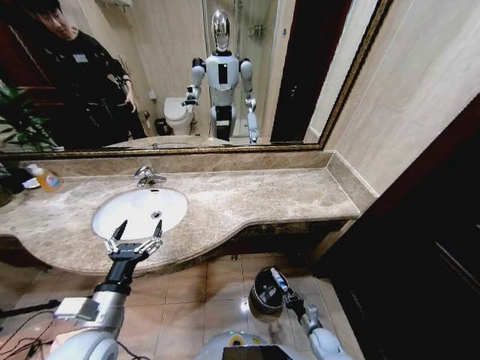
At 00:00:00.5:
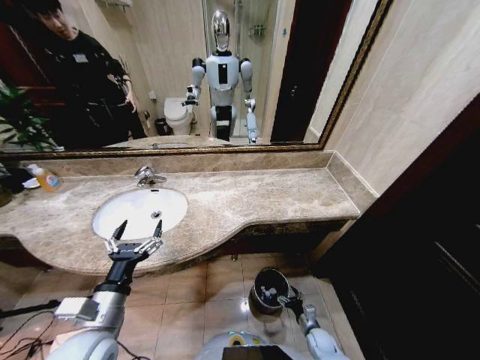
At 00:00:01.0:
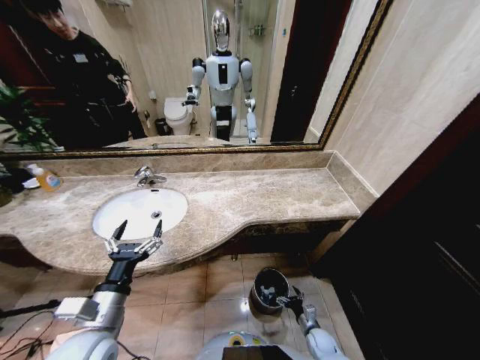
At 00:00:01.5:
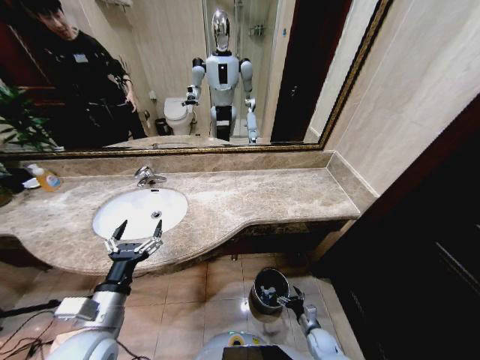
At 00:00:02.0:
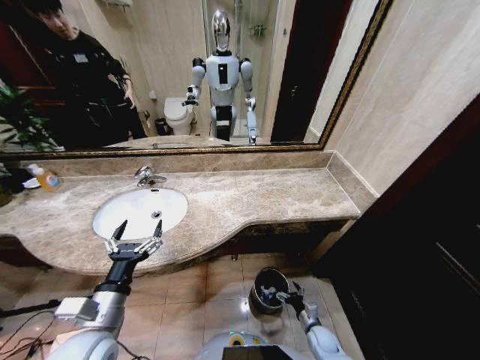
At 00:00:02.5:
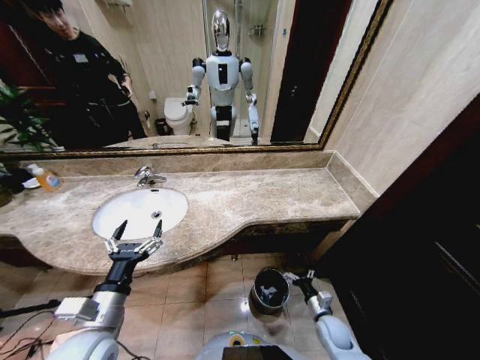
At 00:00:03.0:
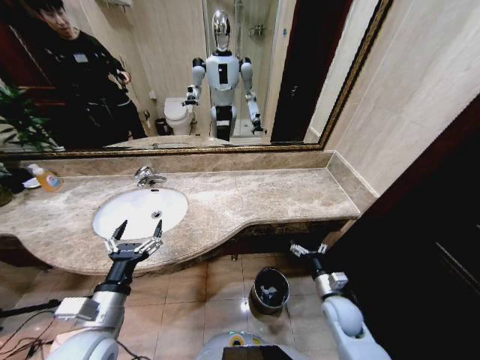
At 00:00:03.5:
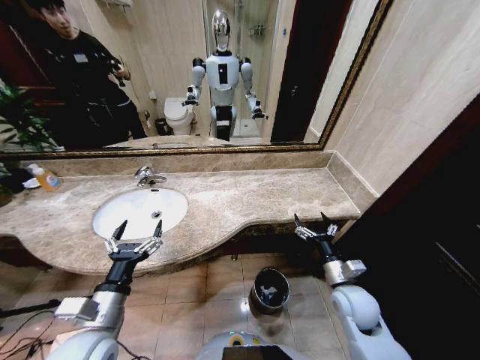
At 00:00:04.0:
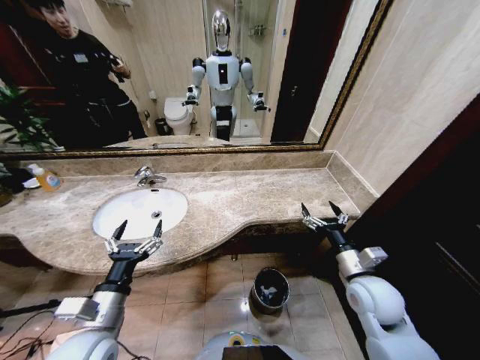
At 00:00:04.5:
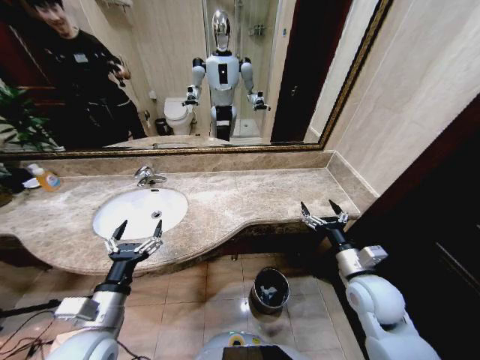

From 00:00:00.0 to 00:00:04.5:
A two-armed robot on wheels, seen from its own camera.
Task of the whole recording: Pick up the trash from the sink and place it in the trash bin.
From 00:00:00.0 to 00:00:02.0: The right gripper opens up.
From 00:00:02.0 to 00:00:04.5: The right gripper shifts some 35 cm upward.
